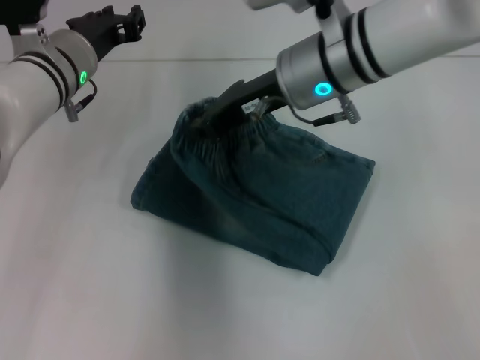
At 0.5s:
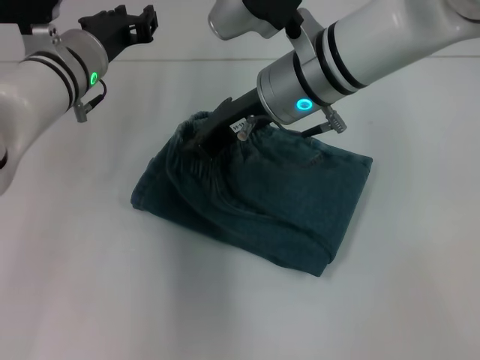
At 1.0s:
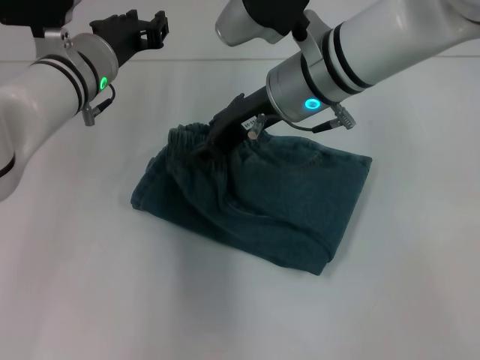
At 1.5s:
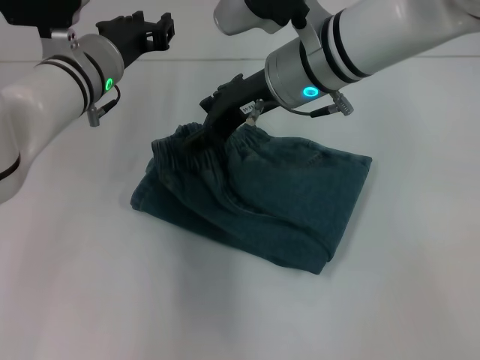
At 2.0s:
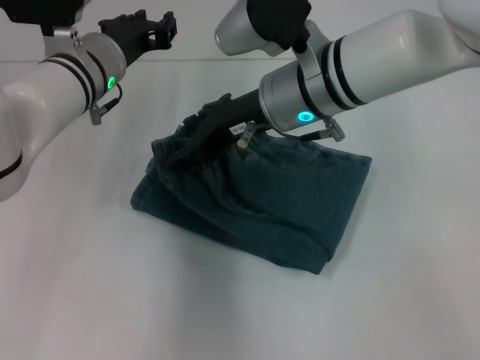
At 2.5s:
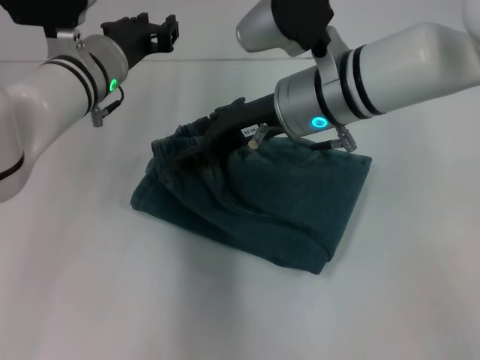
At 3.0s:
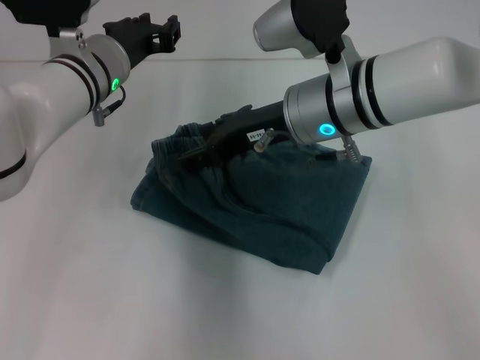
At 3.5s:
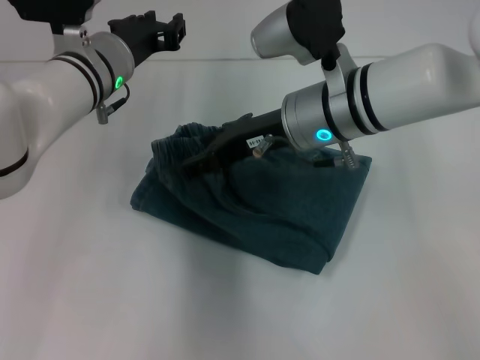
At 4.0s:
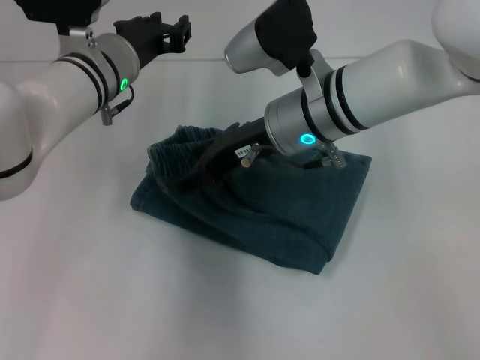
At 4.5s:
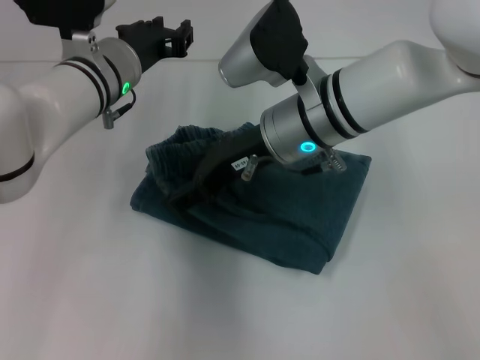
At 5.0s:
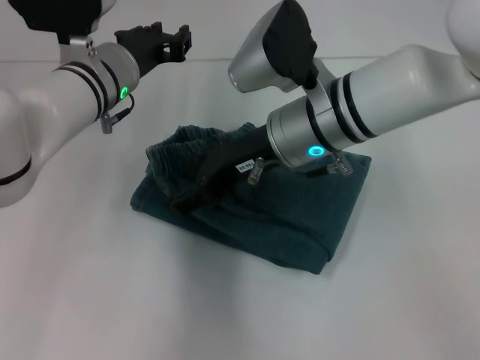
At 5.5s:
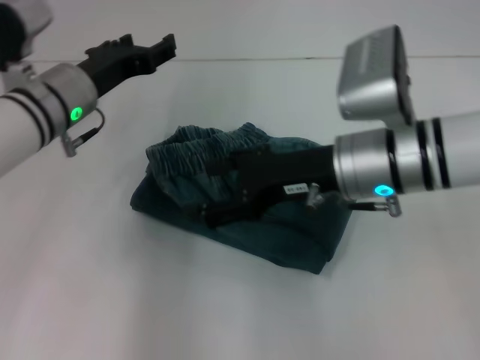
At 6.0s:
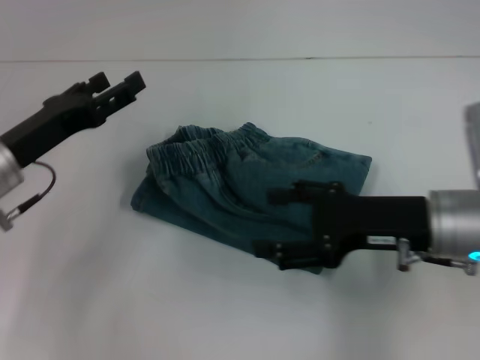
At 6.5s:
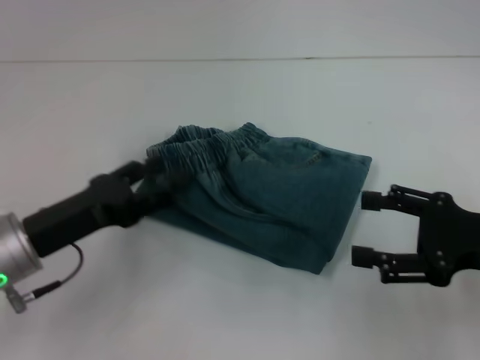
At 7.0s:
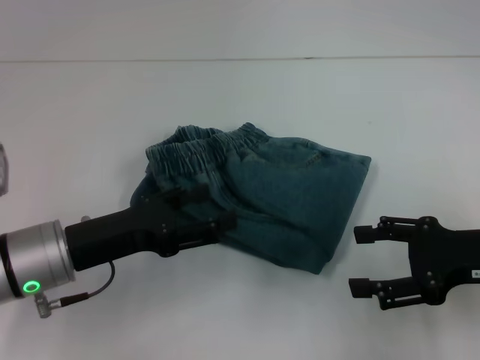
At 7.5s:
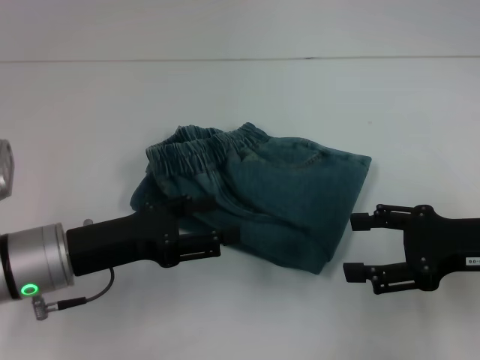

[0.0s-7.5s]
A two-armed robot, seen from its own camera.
Step, 0.0s to 2.5s: Fold to the left with your right hand.
0.0s to 2.0s: The right gripper opens its fingers.
2.0s to 4.0s: The grippers stay close to where they were, moving slightly.
4.0s to 5.5s: The right gripper moves to the right and backward, approximately 10 cm, while the left gripper shifts by some 5 cm.
5.5s to 7.5s: The right gripper moves to the right and backward, approximately 15 cm, while the left gripper travels backward by approximately 15 cm, and opens up.

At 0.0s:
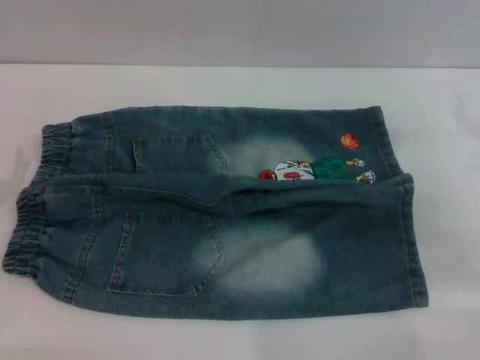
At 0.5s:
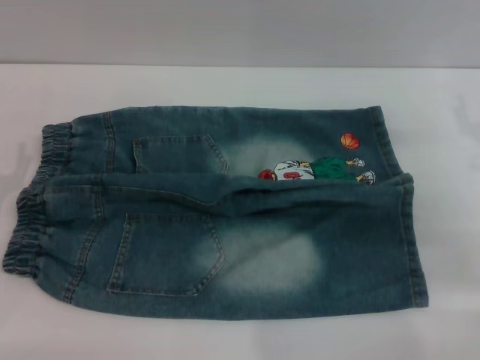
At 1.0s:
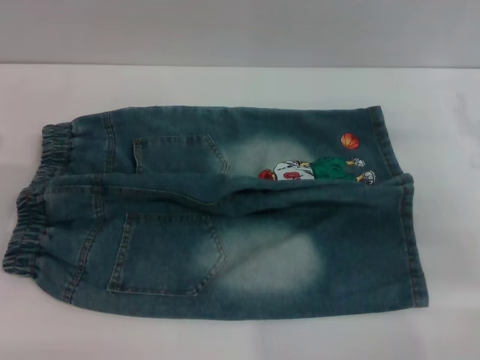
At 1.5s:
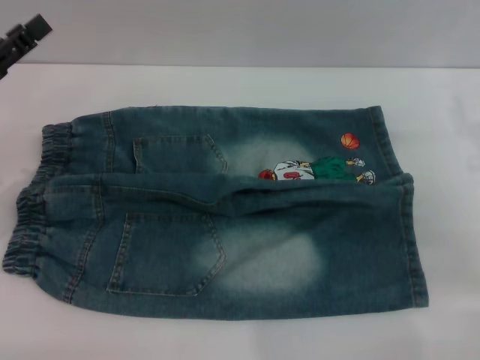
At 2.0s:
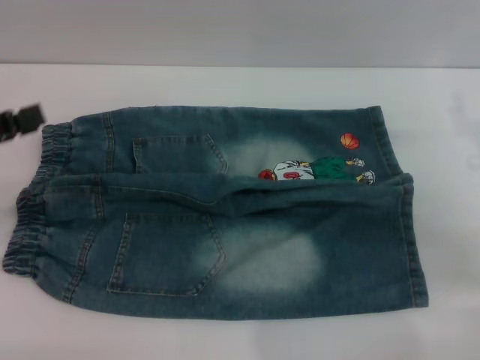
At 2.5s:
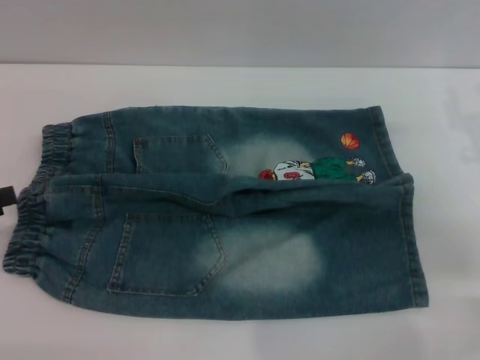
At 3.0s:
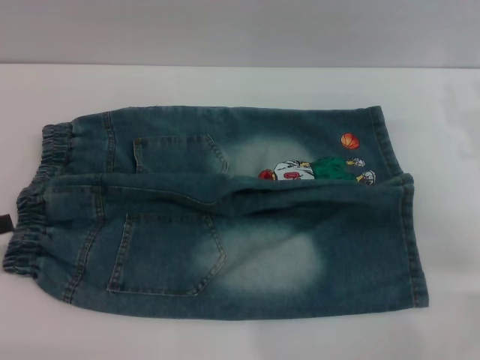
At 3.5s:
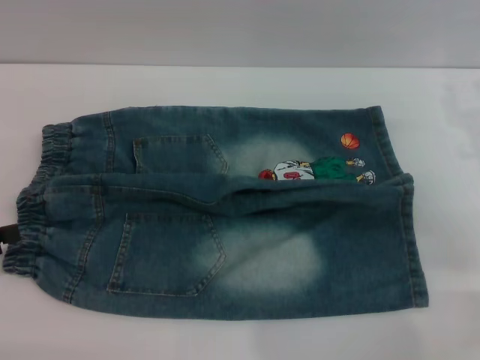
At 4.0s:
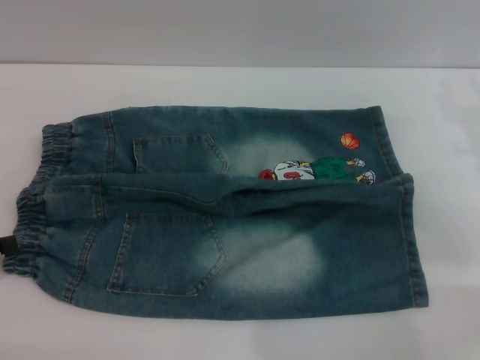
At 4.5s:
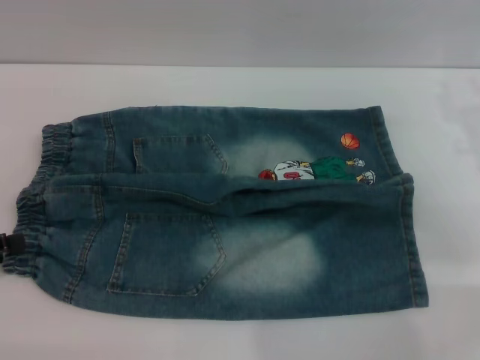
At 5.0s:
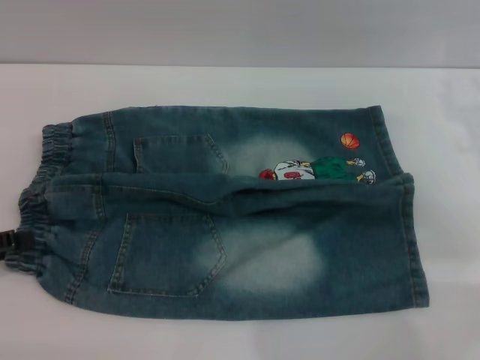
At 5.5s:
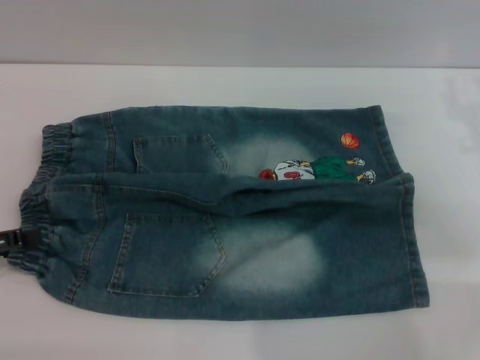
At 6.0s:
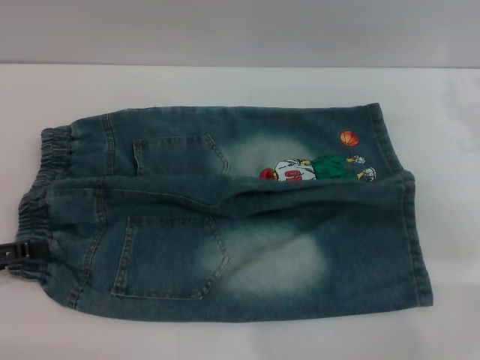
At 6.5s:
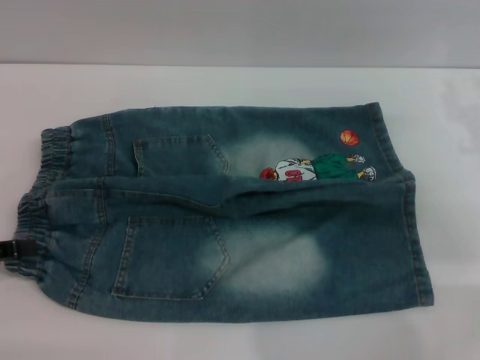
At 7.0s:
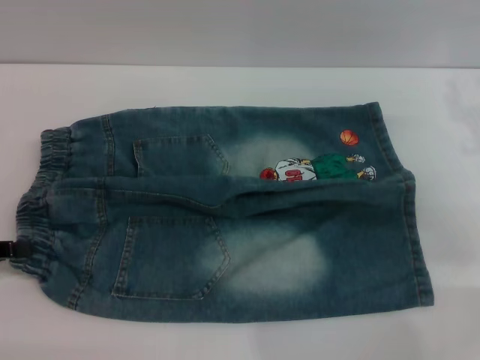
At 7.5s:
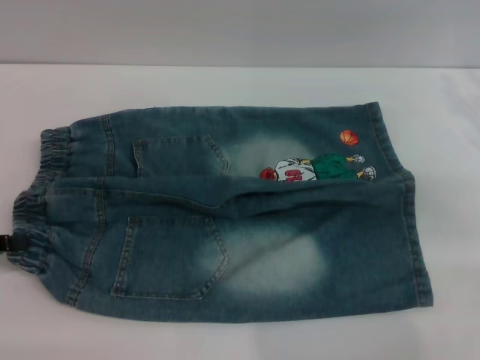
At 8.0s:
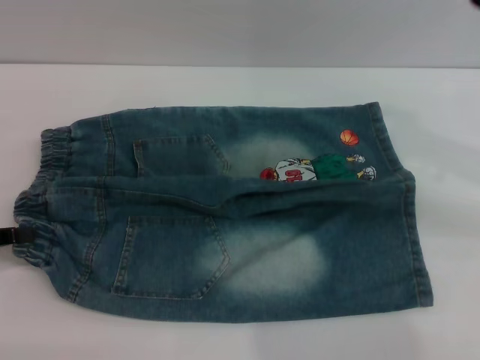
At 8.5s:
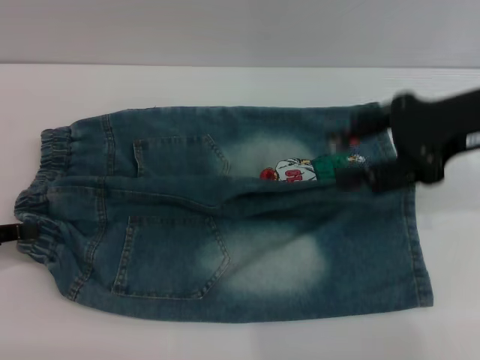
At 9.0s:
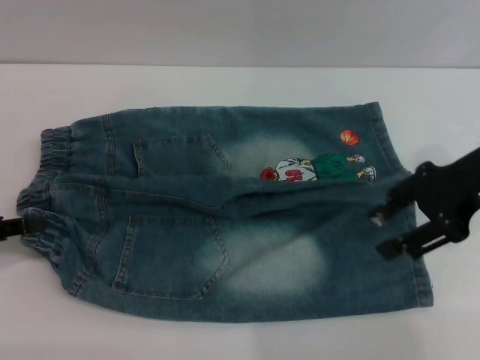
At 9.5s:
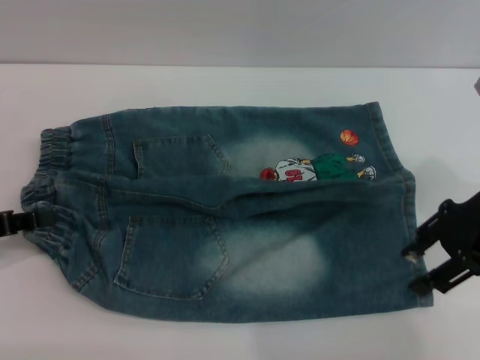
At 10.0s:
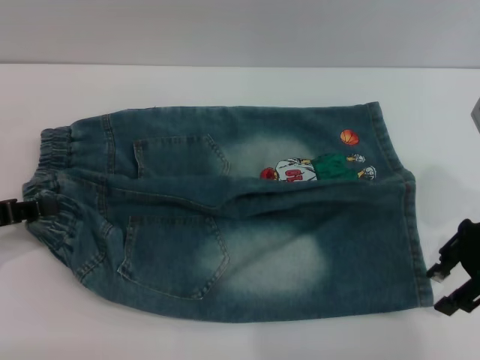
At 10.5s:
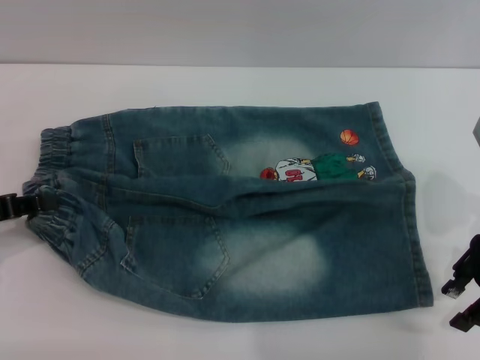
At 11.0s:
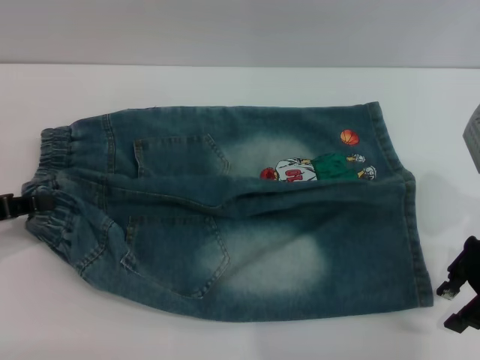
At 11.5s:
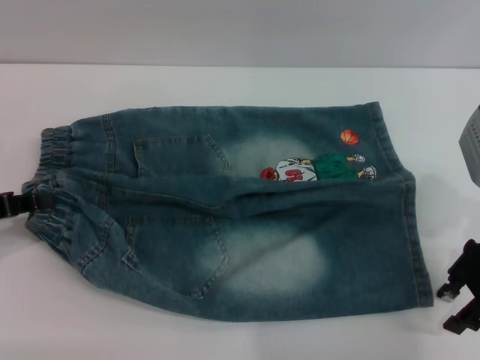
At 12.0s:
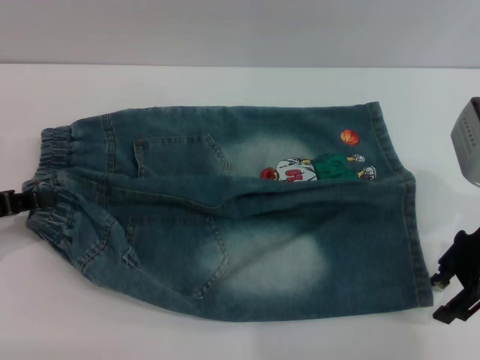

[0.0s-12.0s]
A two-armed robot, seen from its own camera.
0.0s to 2.0s: The left gripper travels upward and to the left by about 10 cm.
2.0s to 4.0s: The left gripper moves downward, about 5 cm.
4.0s to 6.0s: The grippers stay close to where they were, moving slightly.
6.0s to 8.0s: The left gripper closes its fingers.
8.0s to 10.0s: The right gripper travels downward by roughly 5 cm.
10.0s to 12.0s: The grippers stay close to where they were, moving slightly.

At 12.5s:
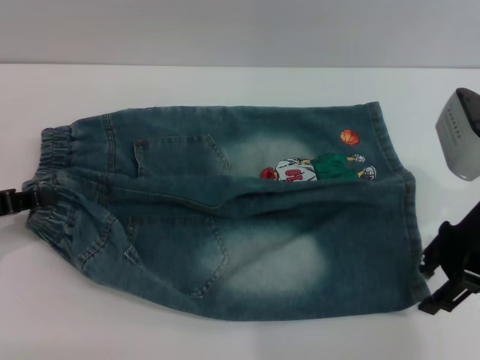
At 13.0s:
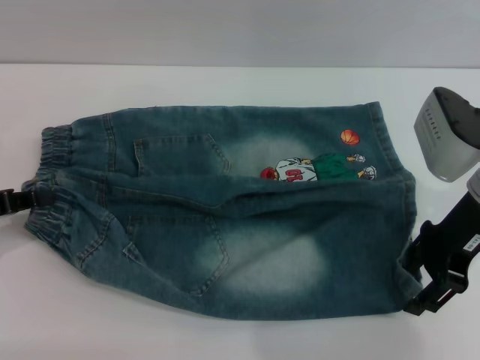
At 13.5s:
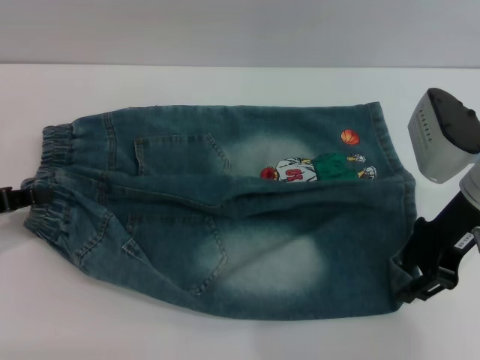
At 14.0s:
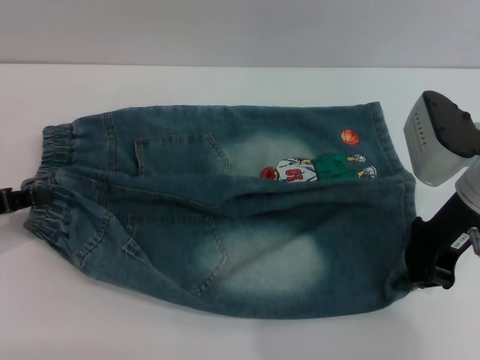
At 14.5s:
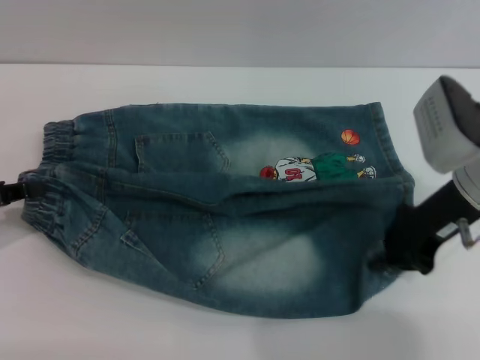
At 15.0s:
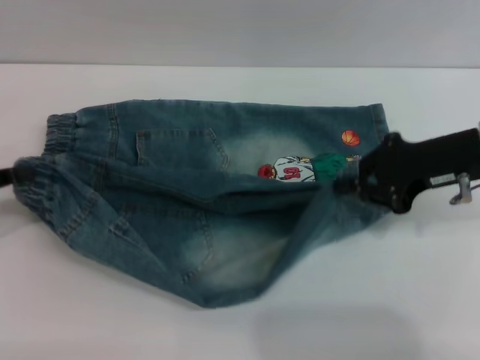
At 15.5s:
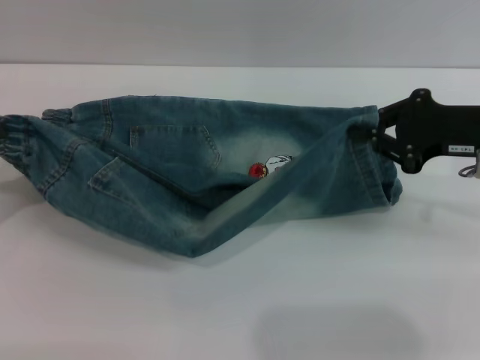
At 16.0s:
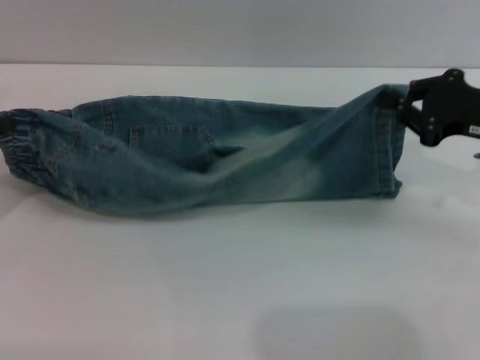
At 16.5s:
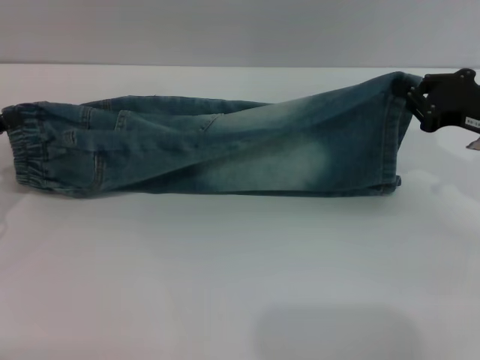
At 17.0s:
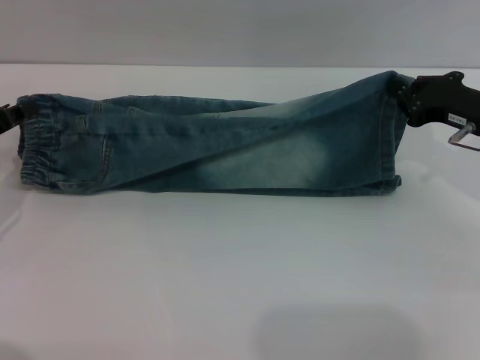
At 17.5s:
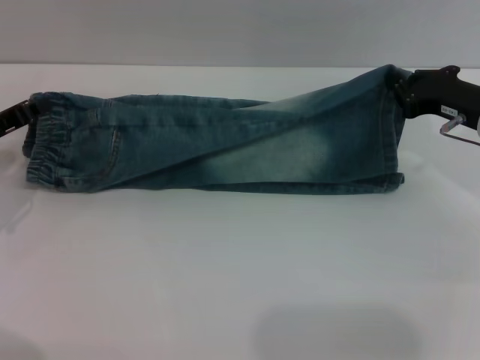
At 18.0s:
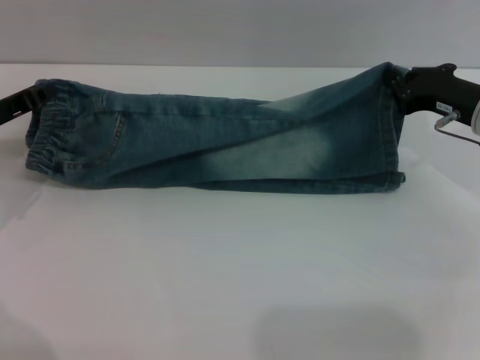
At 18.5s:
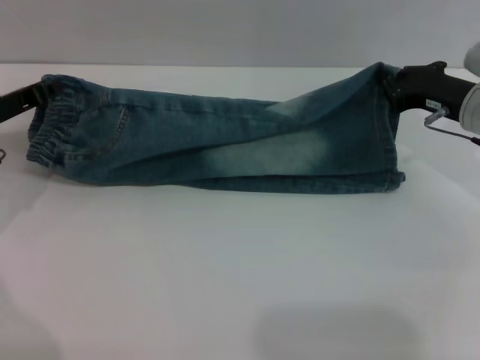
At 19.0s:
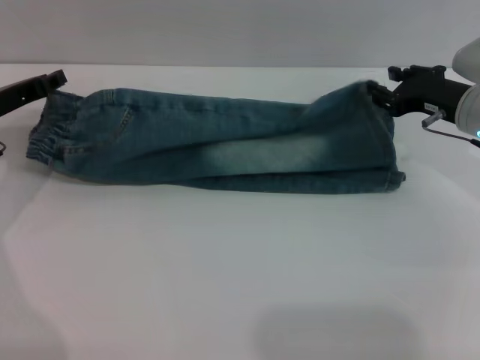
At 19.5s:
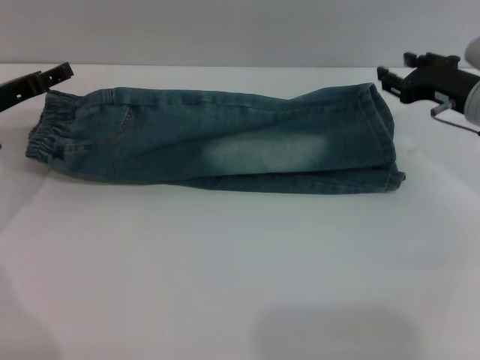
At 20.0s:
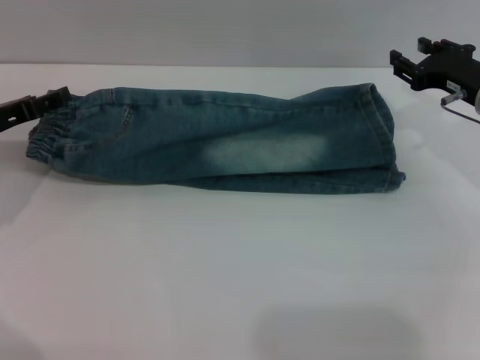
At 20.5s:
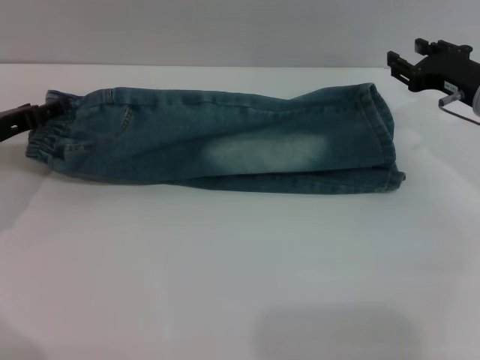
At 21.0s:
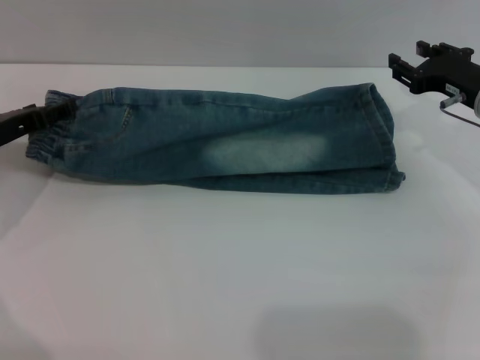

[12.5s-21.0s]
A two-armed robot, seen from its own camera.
Step, 12.5s to 20.0s: Fold the bottom of the pants upward with both grippers.
12.5s to 14.5s: The right gripper closes its fingers.
14.5s to 16.5s: The right gripper moves to the right, approximately 5 cm.
16.5s to 19.0s: The right gripper shifts roughly 5 cm forward, and opens its fingers. Meanwhile the left gripper moves forward and to the right, roughly 10 cm.
19.0s to 21.0s: The right gripper opens, while the left gripper opens.
